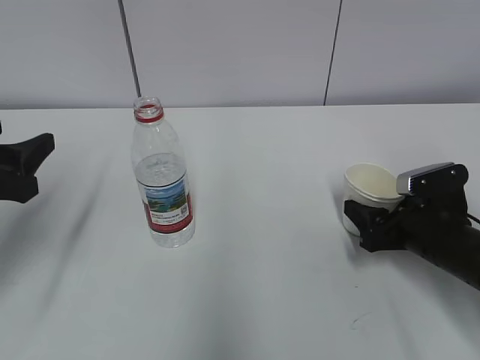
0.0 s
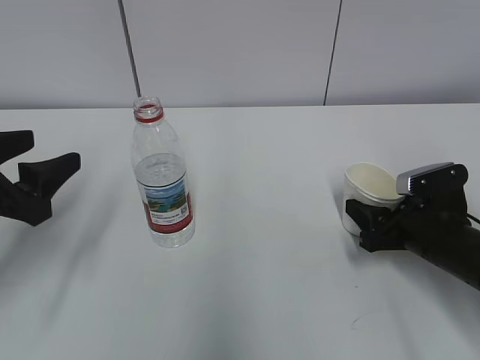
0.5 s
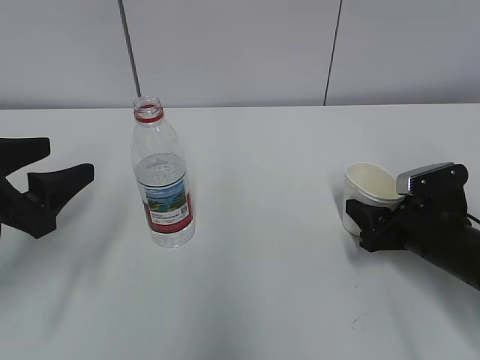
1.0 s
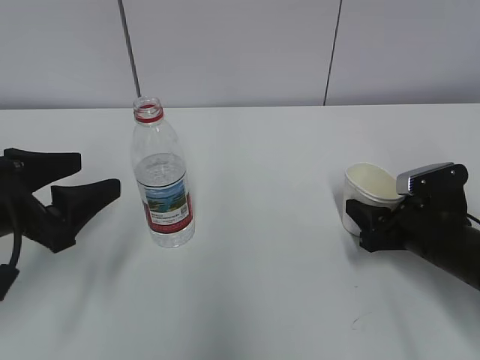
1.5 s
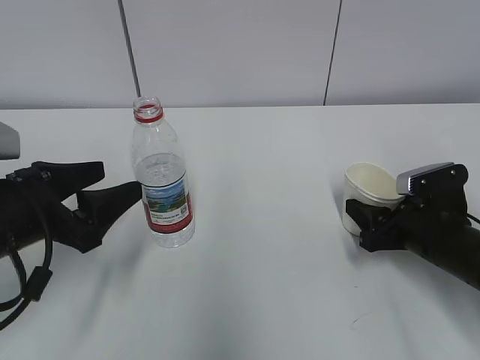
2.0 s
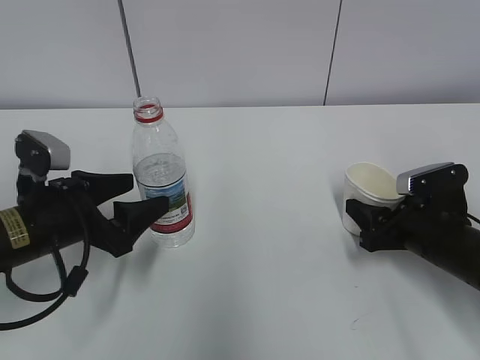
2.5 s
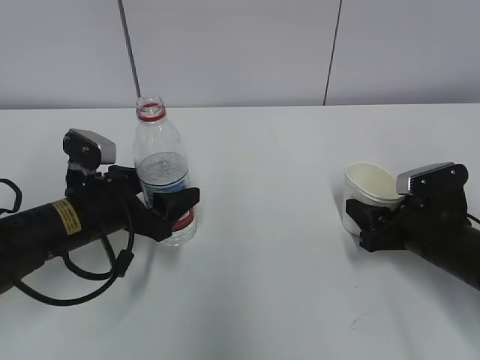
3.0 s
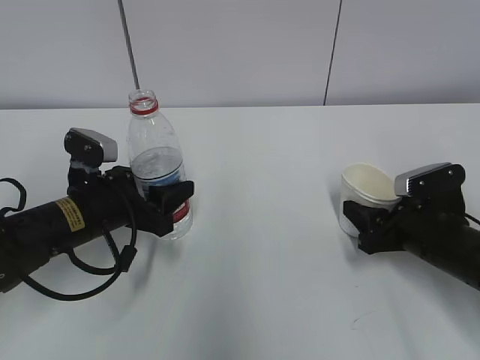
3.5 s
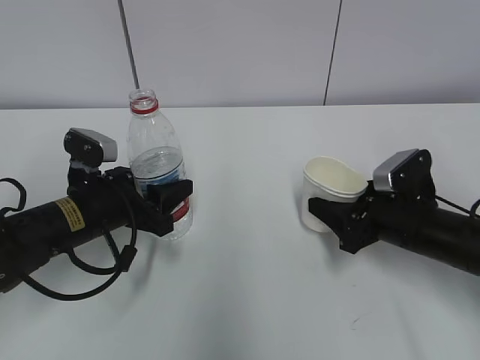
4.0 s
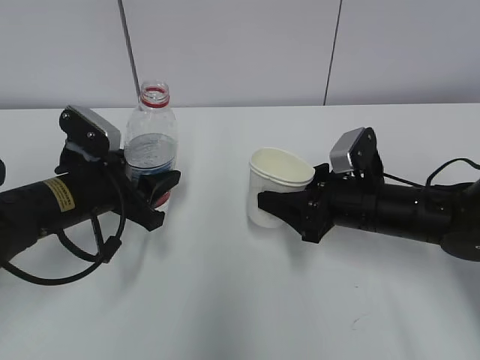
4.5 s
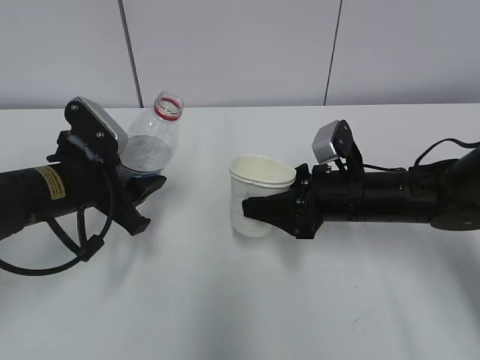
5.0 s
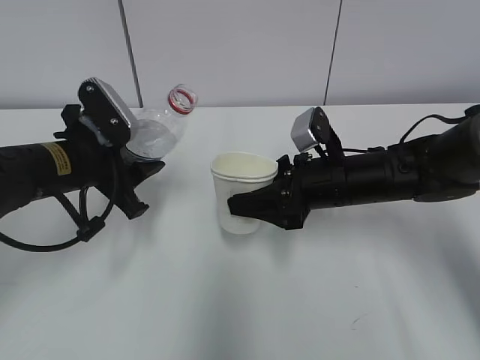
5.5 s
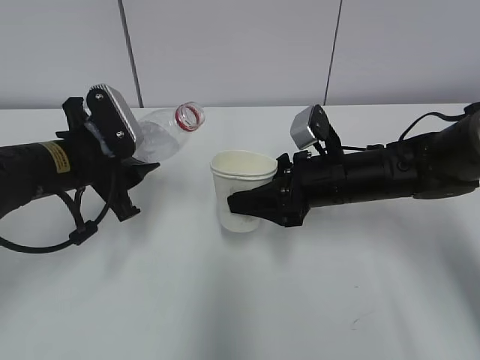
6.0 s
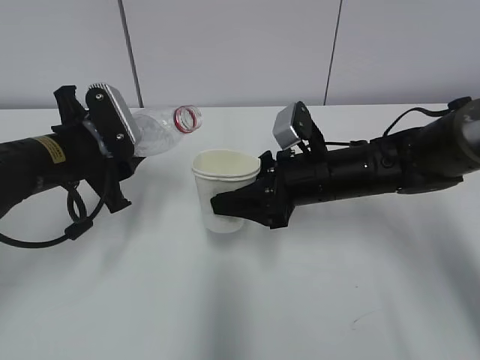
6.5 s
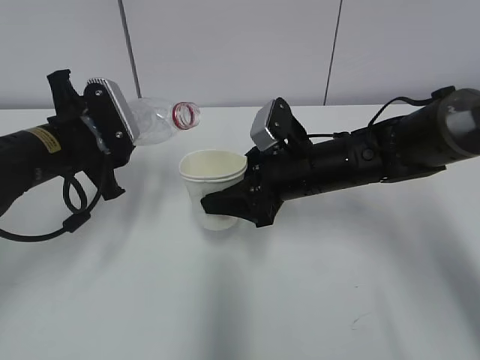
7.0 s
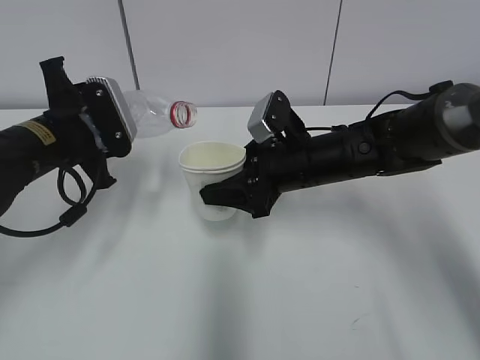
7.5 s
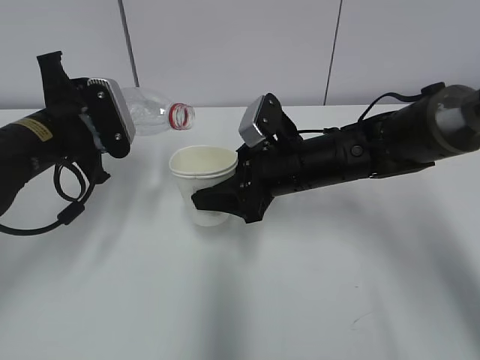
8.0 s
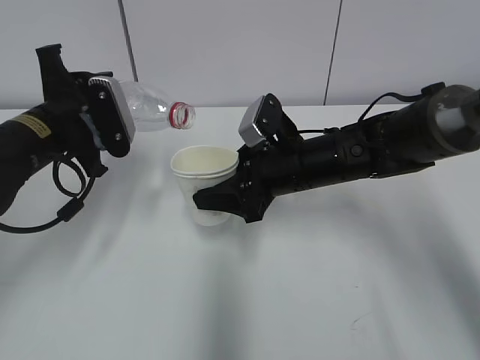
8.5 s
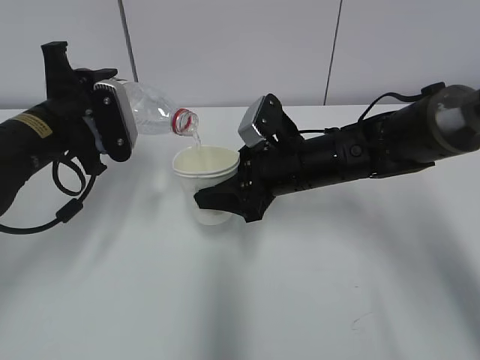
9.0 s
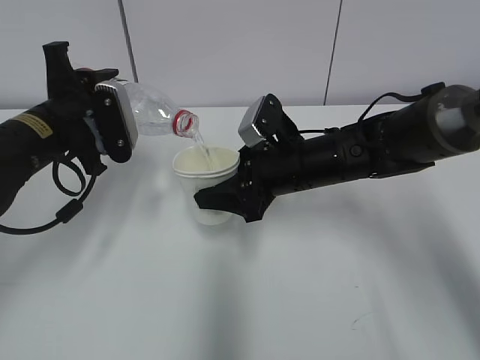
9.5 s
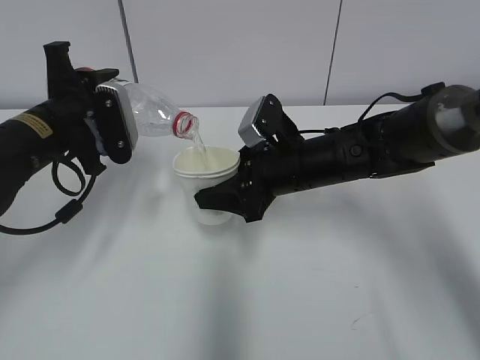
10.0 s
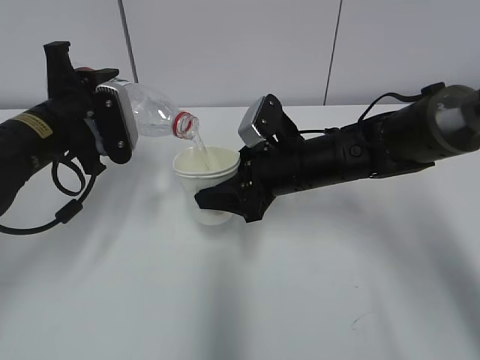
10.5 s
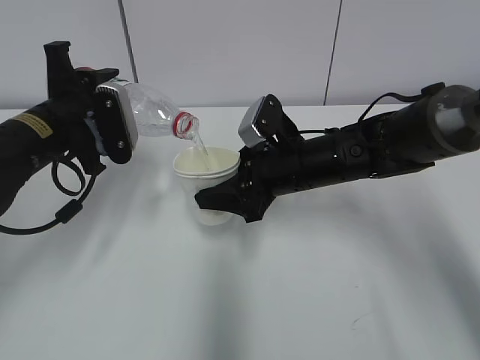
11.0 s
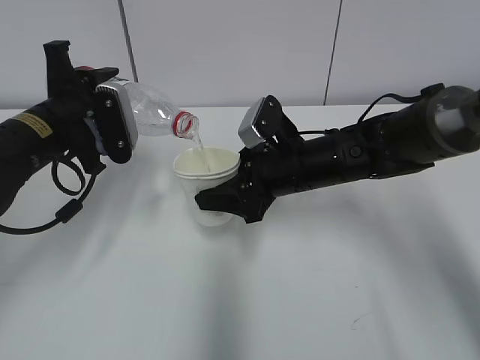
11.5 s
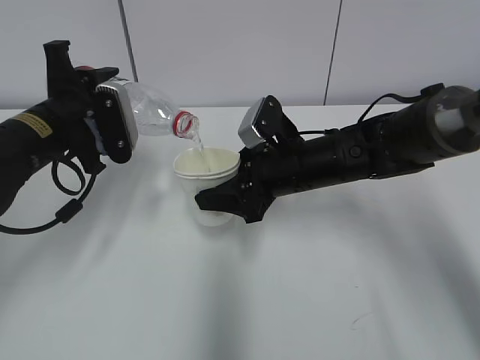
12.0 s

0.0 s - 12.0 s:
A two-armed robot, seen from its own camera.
Step, 2.5 s - 6.0 s: Lift the paper cup with the right hand.
Step, 6.5 s - 10.5 s: Fill water with the right hand.
Step, 6.5 s - 10.5 s: Pour water with the left hand.
0.0 s - 2.0 s: The left gripper shifts some 5 cm to the right.
2.0 s - 4.0 s: The left gripper shifts some 10 cm forward and downward, and closes up.
4.0 s - 6.0 s: The right gripper heads to the left, covering roughly 10 cm. Meanwhile the left gripper travels upward by roughly 5 cm.
6.0 s - 8.0 s: The right gripper shifts by approximately 5 cm.
8.0 s - 10.0 s: The grippers stay close to where they were, moving slightly.
10.0 s - 12.0 s: The two grippers keep their place.

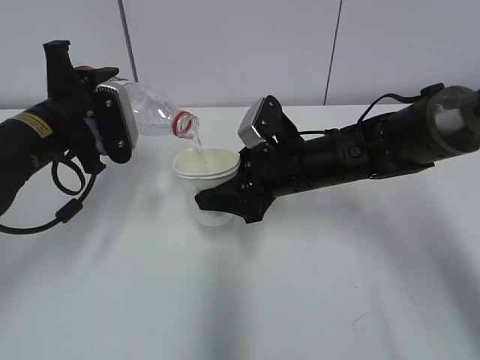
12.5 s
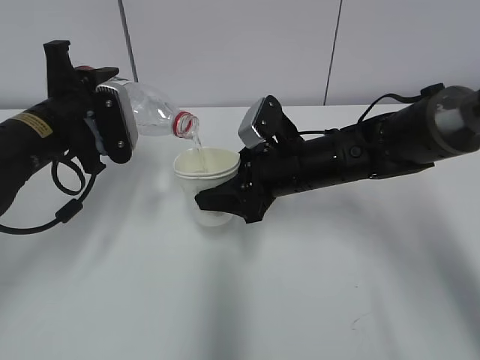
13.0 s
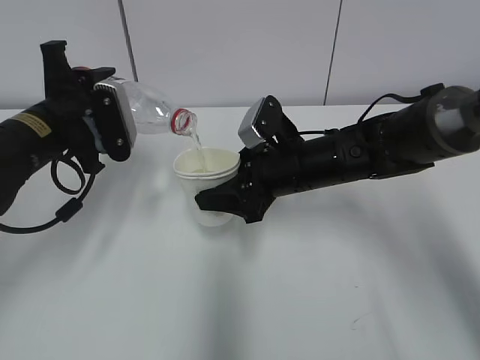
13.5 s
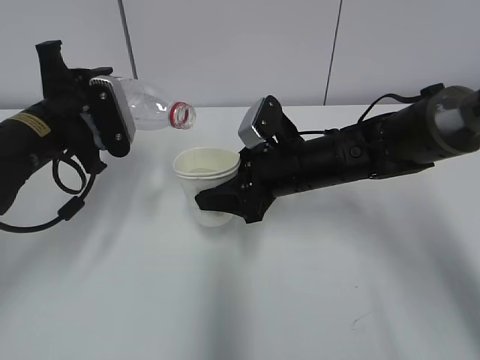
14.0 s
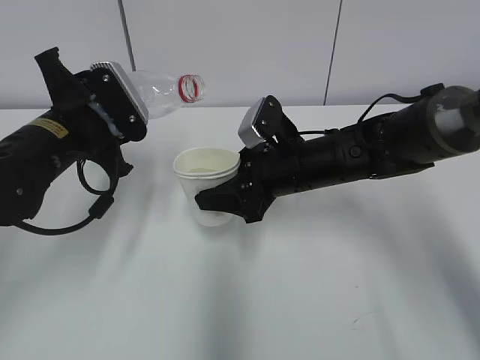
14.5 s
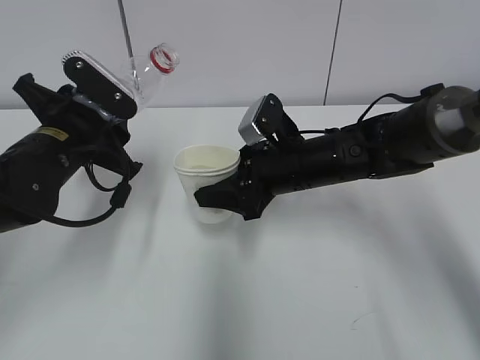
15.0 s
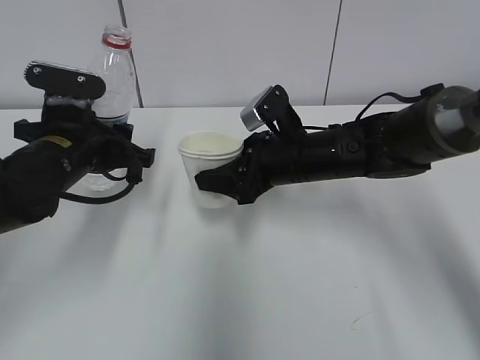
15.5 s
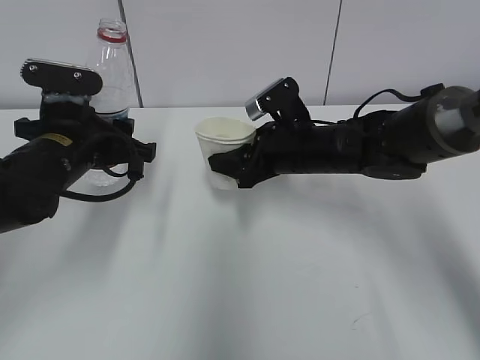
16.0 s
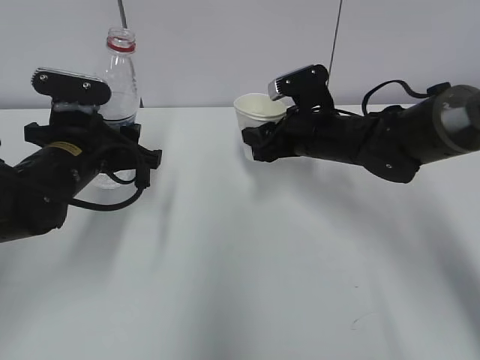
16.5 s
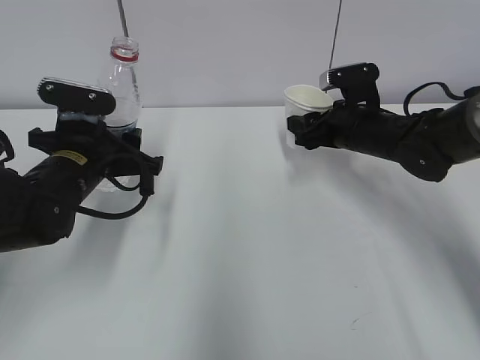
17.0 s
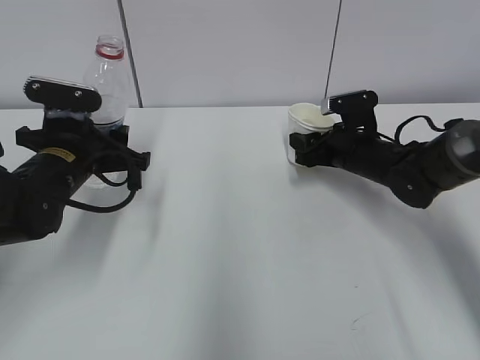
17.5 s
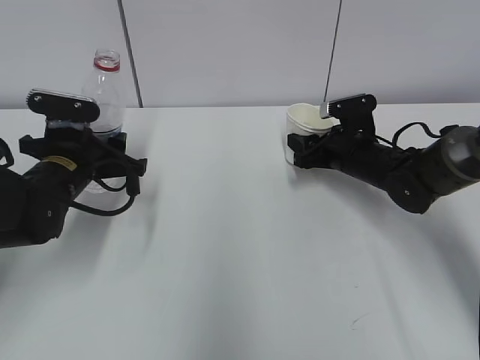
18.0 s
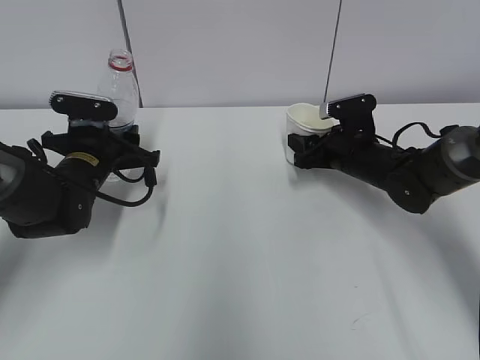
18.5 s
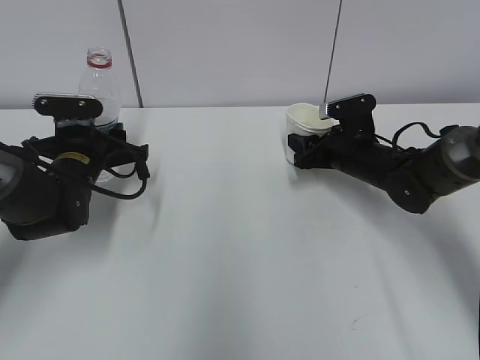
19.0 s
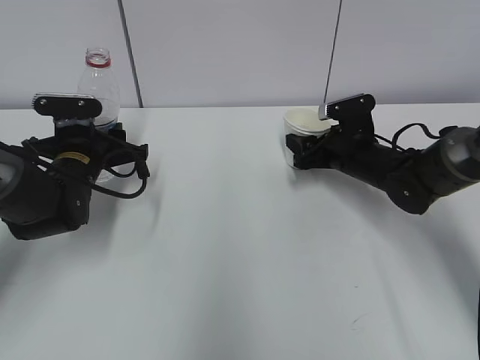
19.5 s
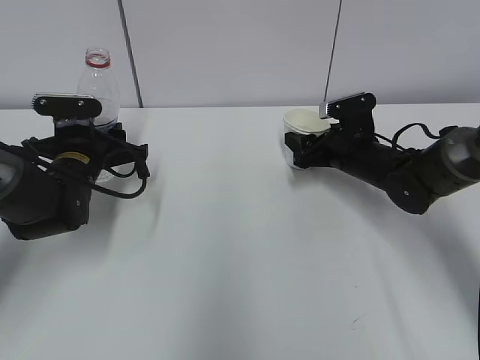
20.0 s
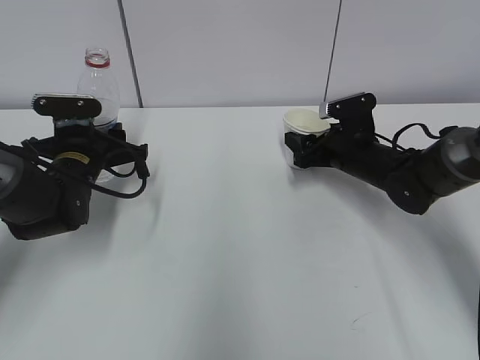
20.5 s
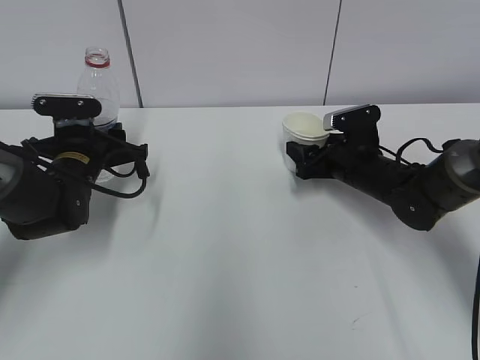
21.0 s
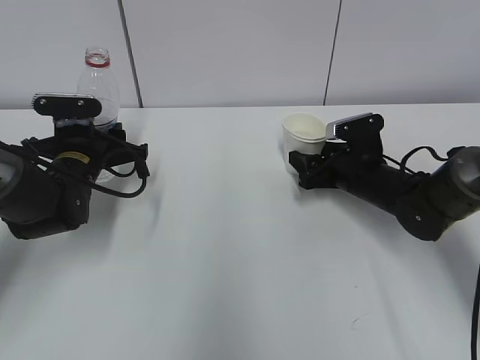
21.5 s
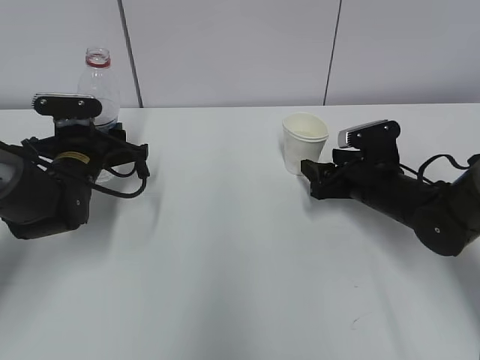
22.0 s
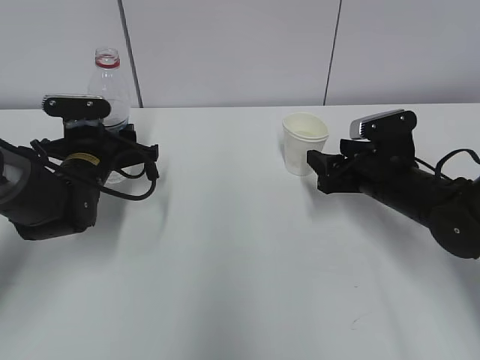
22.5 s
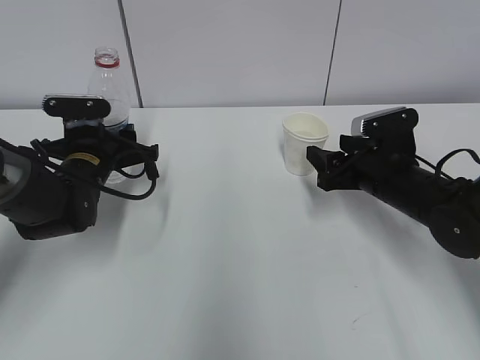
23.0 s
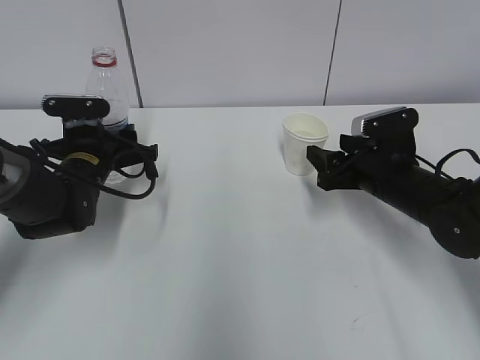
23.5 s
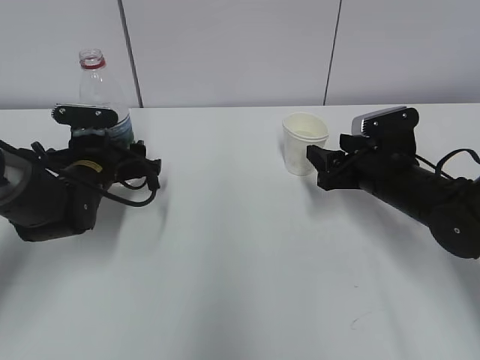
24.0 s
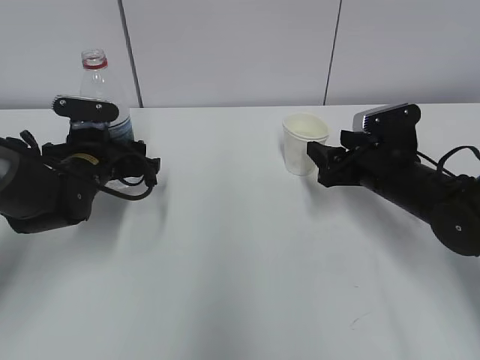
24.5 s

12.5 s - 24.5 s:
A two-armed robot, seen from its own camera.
Step, 15.5 s - 19.5 s: Place the water bottle with the left hand.
14.5 s - 16.5 s: The right gripper moves approximately 5 cm.
16.5 s - 18.5 s: The left gripper moves forward and downward, about 10 cm, while the right gripper travels to the right and downward by approximately 10 cm.
18.5 s - 20.5 s: The right gripper opens its fingers.
20.5 s - 22.5 s: The right gripper heads backward, covering roughly 10 cm.
22.5 s - 24.5 s: The left gripper opens up.

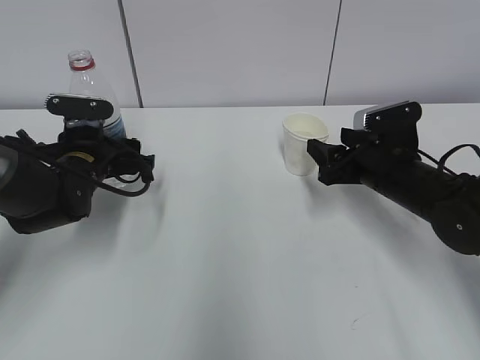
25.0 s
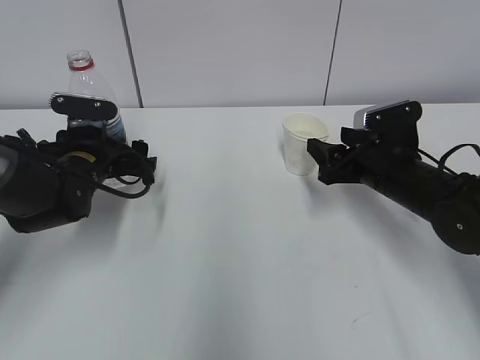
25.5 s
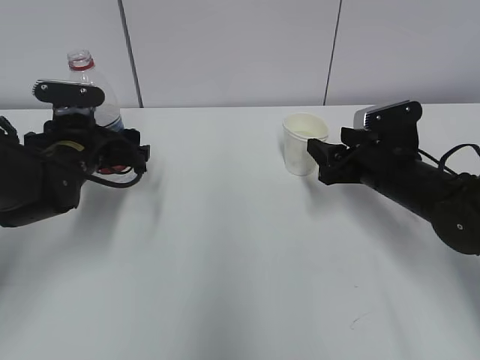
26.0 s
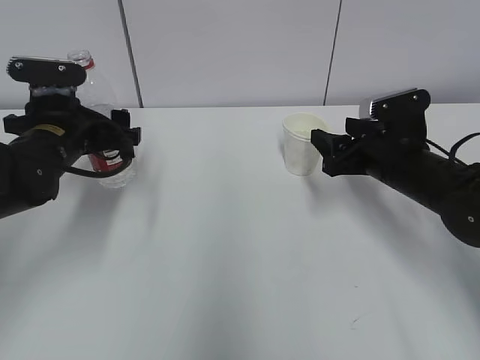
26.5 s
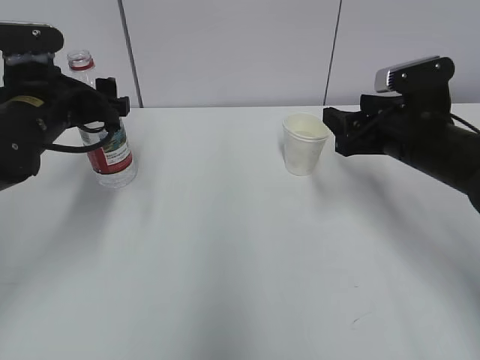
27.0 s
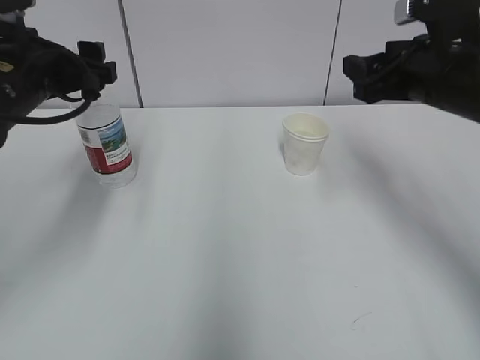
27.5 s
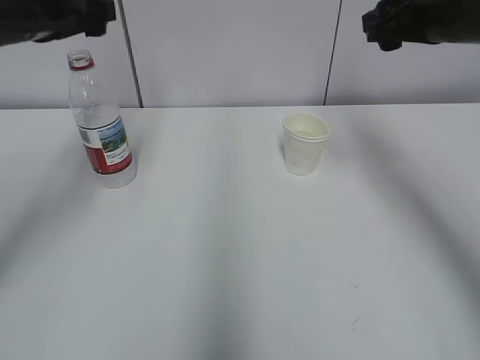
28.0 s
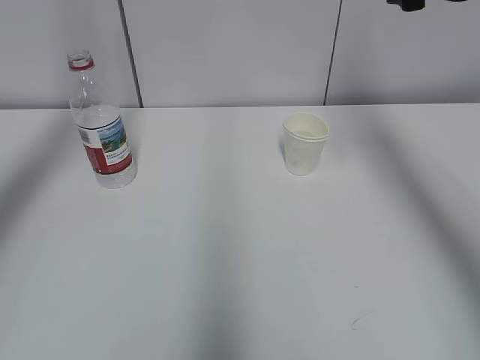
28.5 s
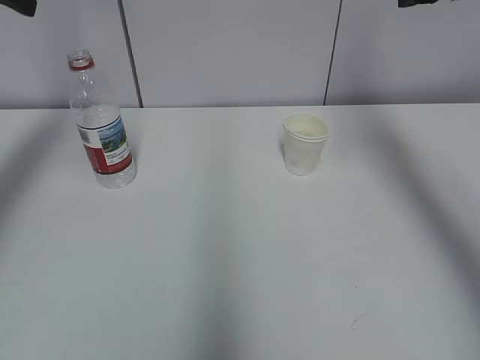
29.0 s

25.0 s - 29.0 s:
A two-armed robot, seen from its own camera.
25.0 s - 27.0 s: The right gripper goes roughly 5 cm upward. The left gripper heads upward, covering some 10 cm, and opens its fingers.
27.0 s - 29.0 s: The right gripper moves upward, roughly 20 cm. The left gripper goes some 20 cm upward and to the left.
